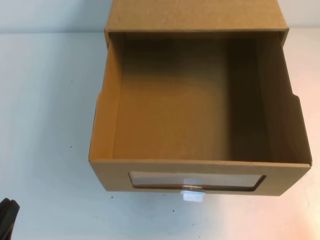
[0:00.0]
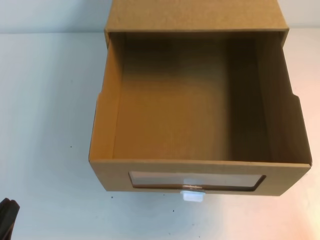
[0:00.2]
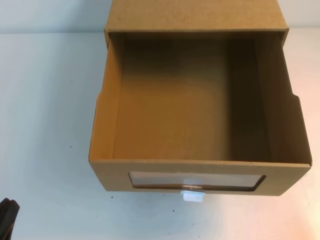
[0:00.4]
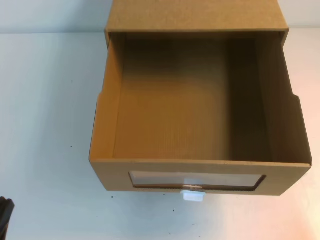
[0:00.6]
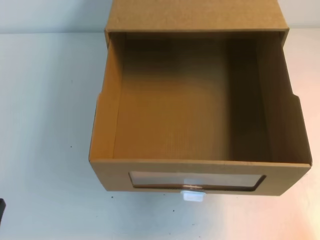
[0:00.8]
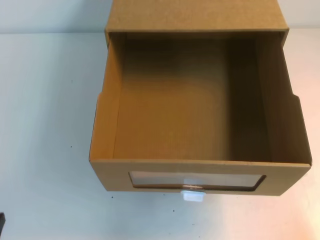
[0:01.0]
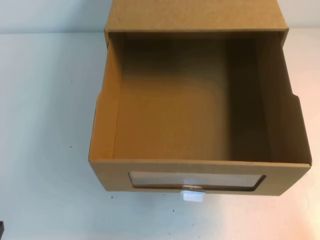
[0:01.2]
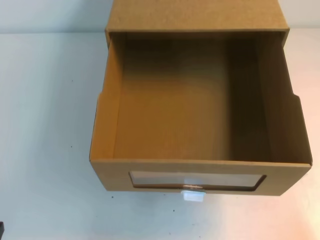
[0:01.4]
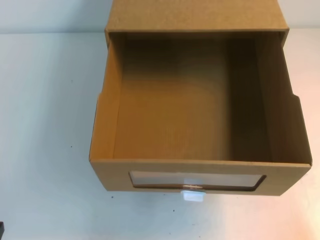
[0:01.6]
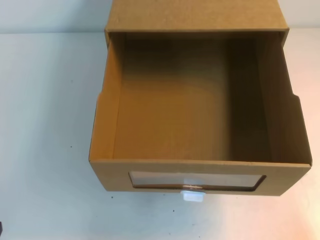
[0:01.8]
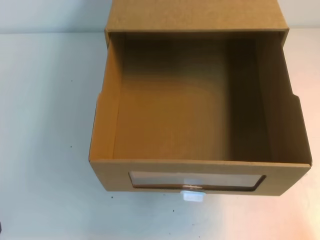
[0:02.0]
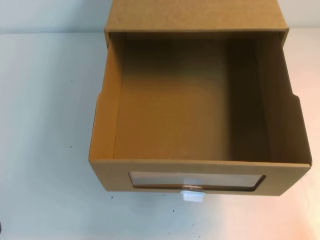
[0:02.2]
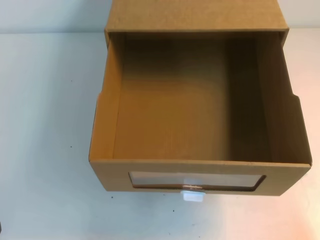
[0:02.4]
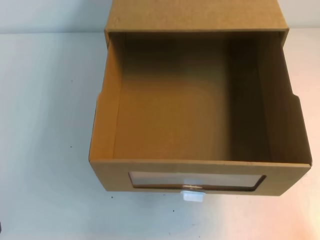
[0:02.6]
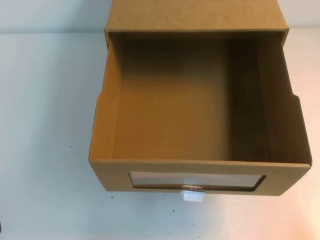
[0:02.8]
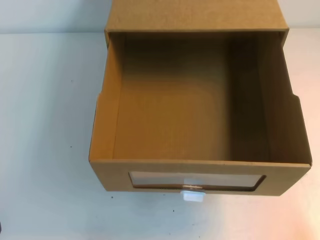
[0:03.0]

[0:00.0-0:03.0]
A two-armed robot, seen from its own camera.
Task of the whole recording: open the shoebox on the table.
0:01.6 to 0:03.0: The two grippers keep their place.

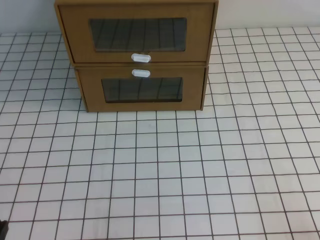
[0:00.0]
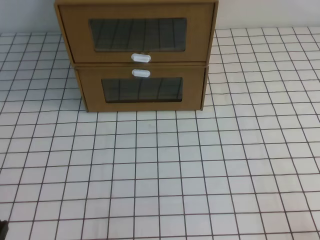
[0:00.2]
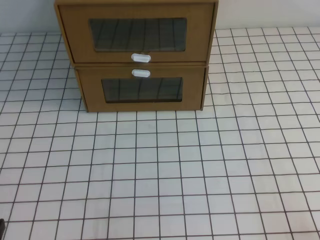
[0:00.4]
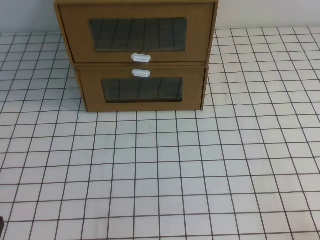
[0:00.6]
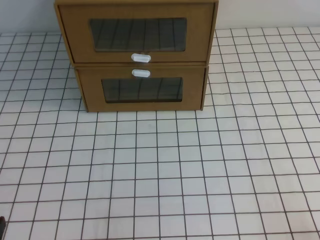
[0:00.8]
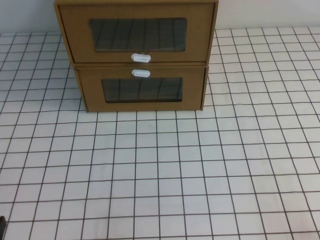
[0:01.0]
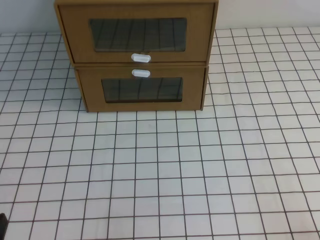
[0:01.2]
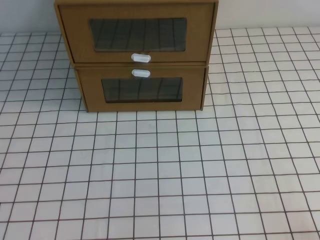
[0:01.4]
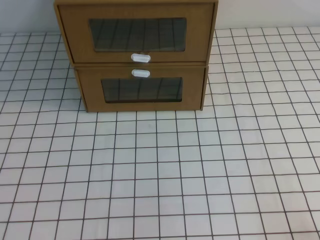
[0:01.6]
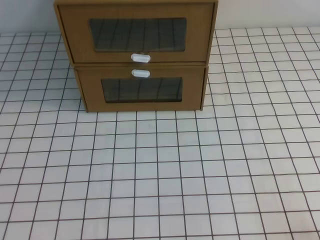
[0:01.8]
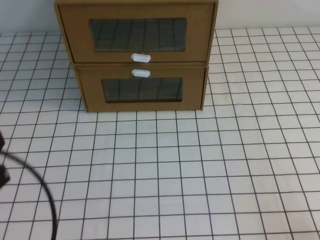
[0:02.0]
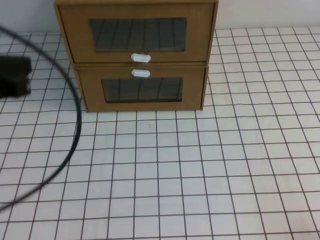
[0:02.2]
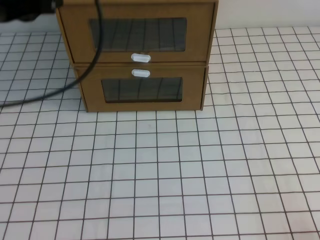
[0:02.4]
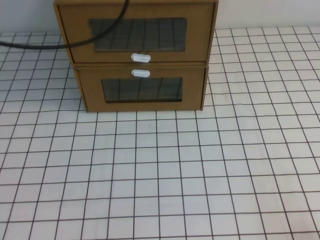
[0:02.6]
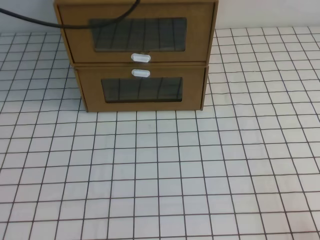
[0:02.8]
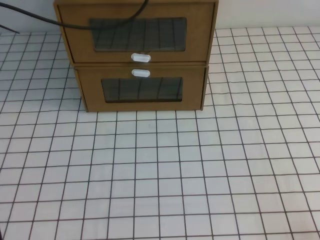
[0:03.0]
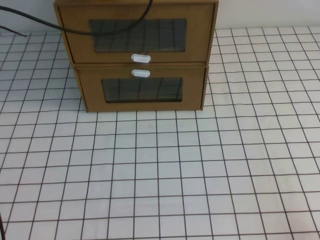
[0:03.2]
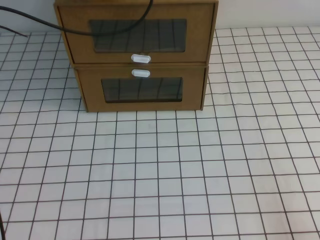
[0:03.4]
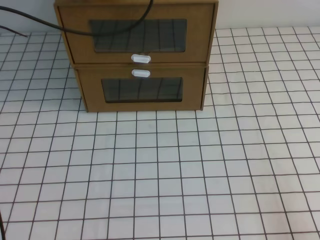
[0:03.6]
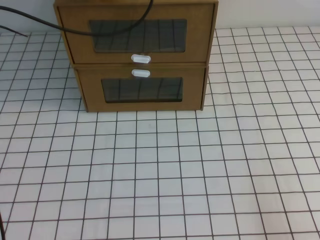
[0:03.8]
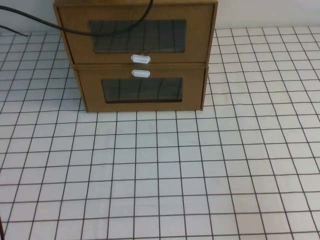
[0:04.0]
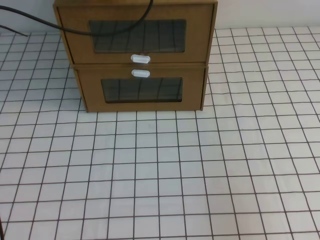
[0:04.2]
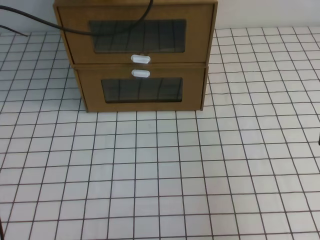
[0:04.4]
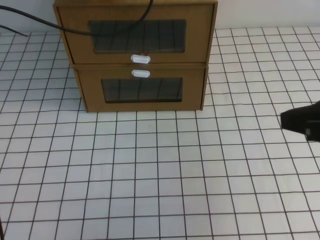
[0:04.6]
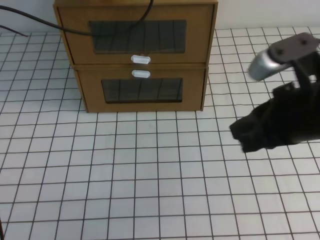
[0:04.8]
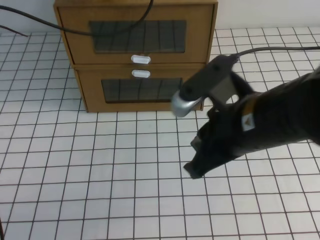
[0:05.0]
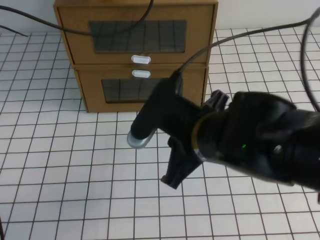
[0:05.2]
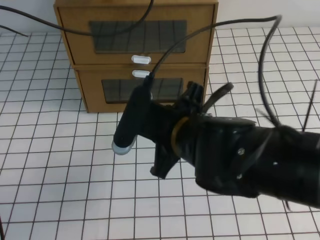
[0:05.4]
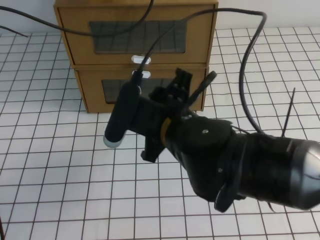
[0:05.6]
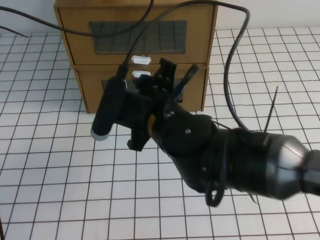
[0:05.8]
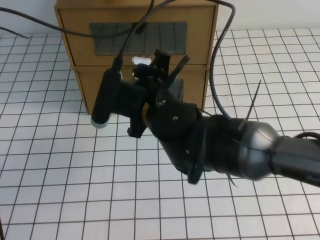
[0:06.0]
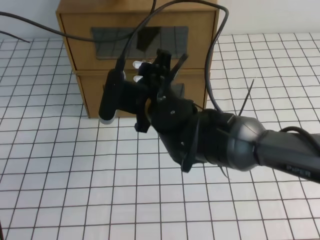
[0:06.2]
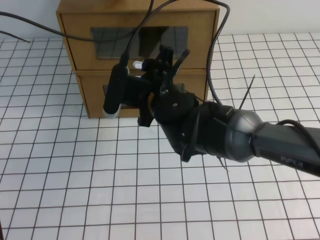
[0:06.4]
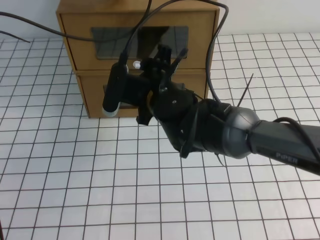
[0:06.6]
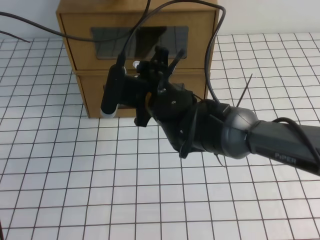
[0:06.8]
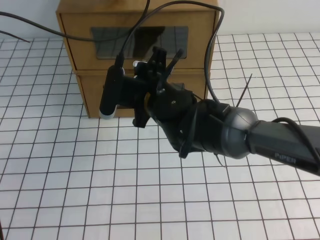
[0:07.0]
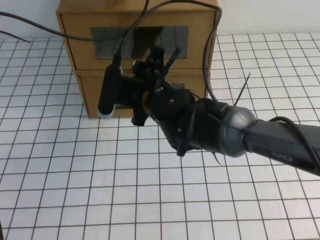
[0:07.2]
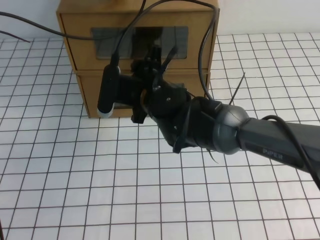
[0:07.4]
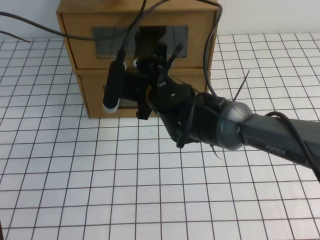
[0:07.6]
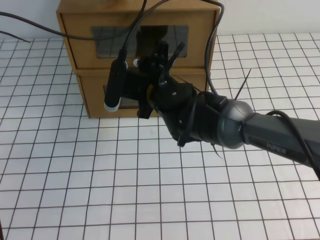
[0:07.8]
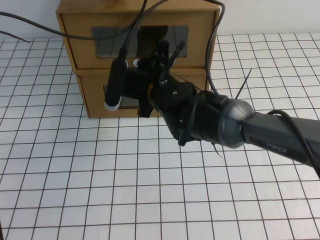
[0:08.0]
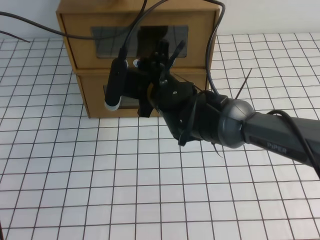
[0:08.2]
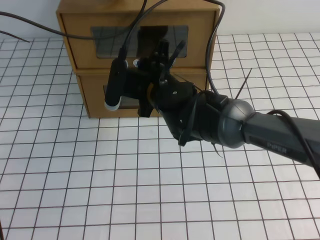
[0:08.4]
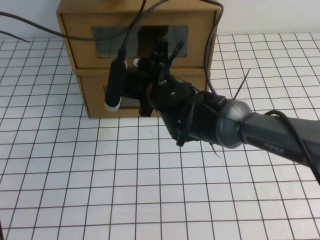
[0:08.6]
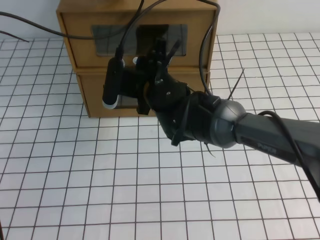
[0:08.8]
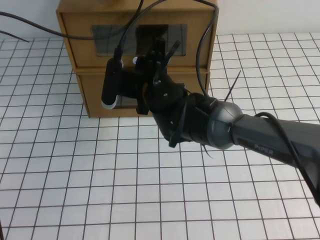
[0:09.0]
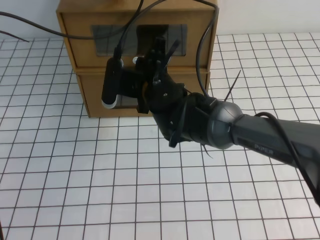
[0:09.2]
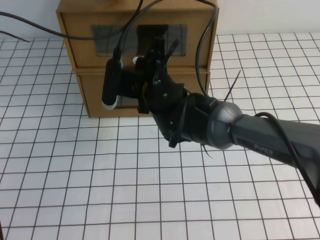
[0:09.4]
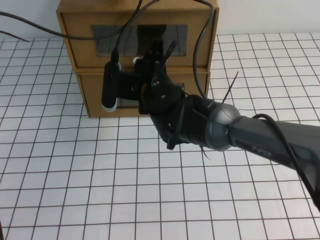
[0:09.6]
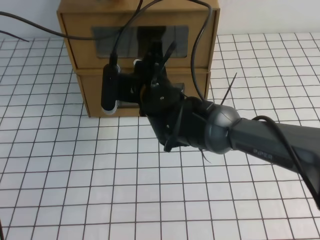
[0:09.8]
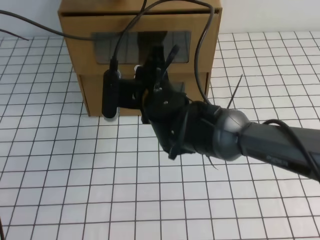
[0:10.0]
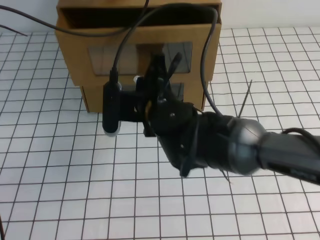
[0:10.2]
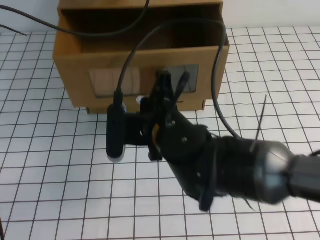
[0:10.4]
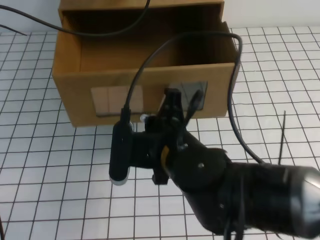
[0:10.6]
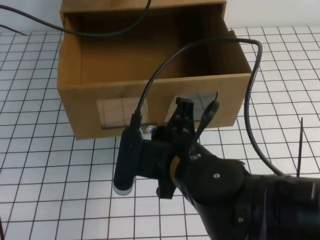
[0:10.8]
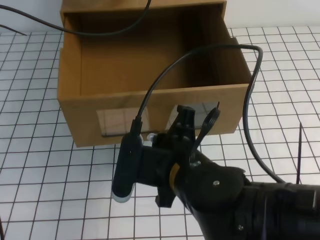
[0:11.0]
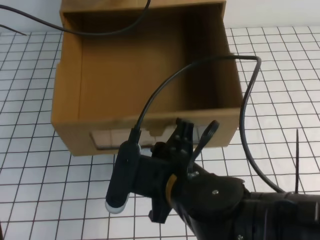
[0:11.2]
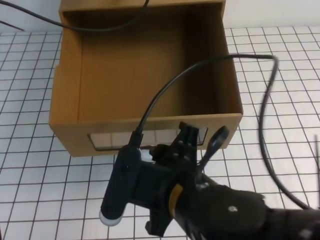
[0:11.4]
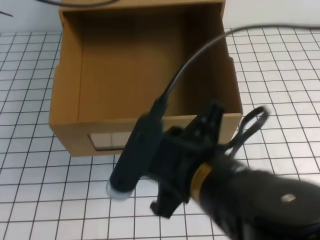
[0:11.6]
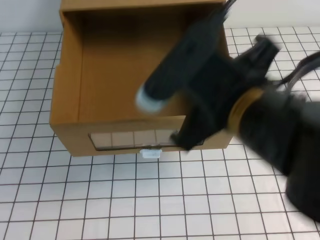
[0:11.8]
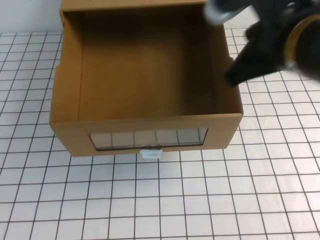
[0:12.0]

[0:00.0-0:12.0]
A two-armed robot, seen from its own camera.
Task of the whole recording: open the shoebox on the white tablecloth.
0:01.6 to 0:03.0: The left gripper is displaced forward and upward by approximately 40 cm.
0:03.0 to 0:04.4: The left gripper shifts by some 5 cm. The right gripper is displaced upward by about 15 cm.
0:04.4 to 0:06.0: The right gripper goes some 35 cm to the left and forward, and opens up.
0:06.0 to 0:07.6: The right gripper heads forward, covering roughly 10 cm.
0:07.6 to 0:09.0: The right gripper closes up.
0:09.0 to 0:10.4: The right gripper shifts roughly 10 cm backward.
0:10.4 to 0:12.0: The right gripper shifts approximately 20 cm upward, to the right and backward, and opens and closes again. The left gripper moves upward and backward, approximately 15 cm.

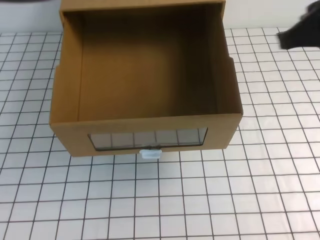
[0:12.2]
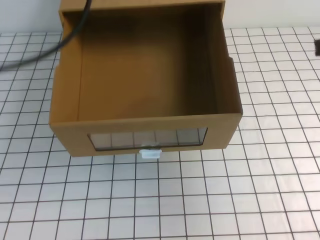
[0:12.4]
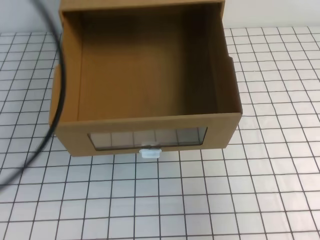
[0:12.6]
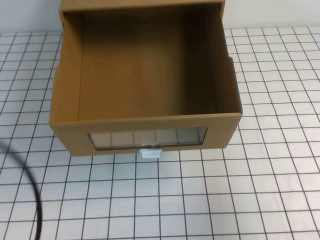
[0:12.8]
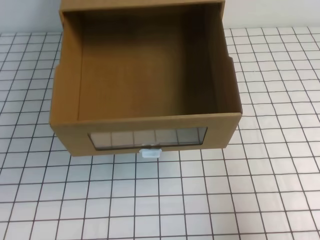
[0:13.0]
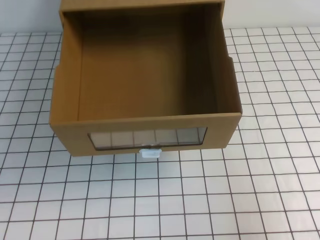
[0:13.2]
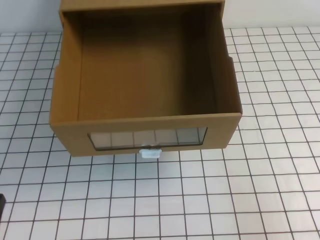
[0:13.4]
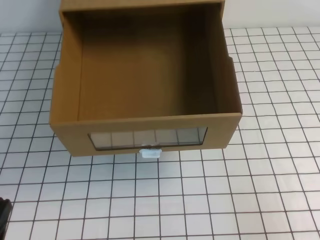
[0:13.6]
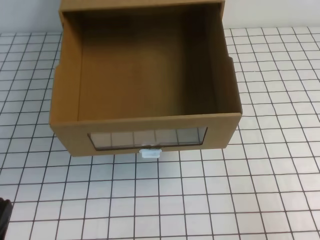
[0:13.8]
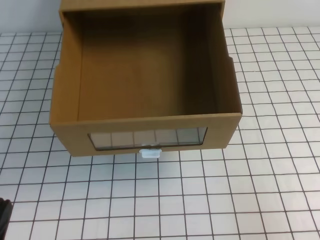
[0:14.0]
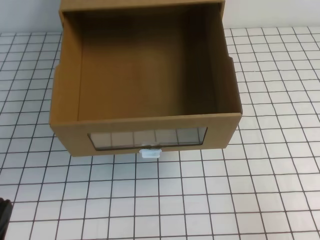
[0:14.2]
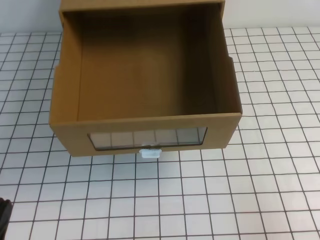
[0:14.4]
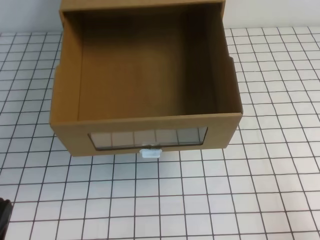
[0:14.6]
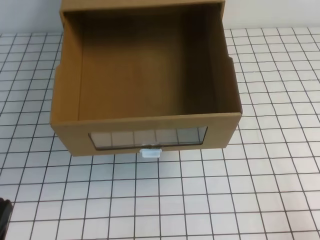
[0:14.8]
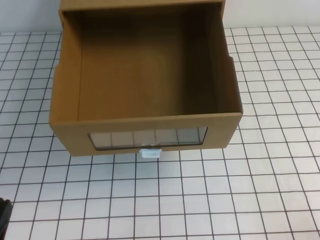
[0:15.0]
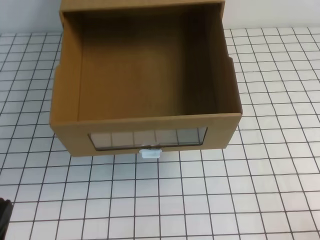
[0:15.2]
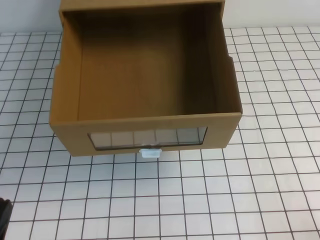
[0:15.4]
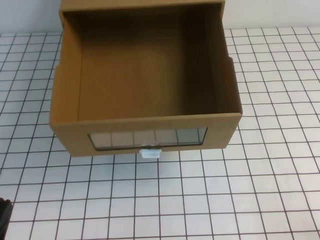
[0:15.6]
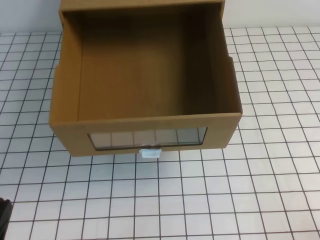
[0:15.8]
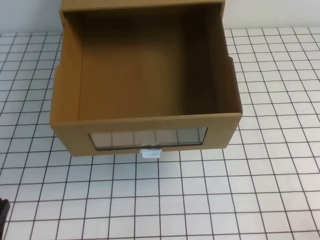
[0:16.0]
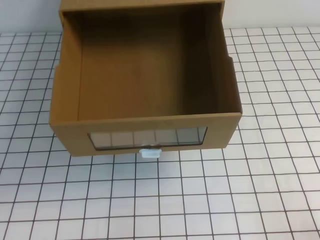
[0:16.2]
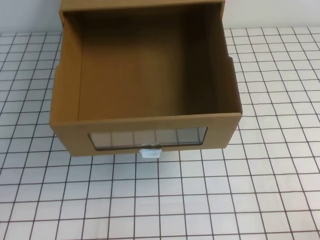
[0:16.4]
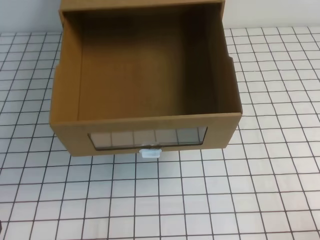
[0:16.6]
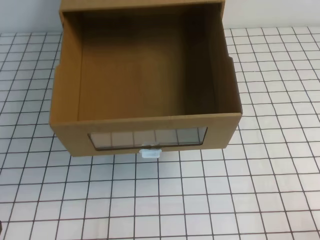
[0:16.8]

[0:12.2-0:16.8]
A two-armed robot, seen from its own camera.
Task of the whole recording: open the shoebox on the white tablecloth.
Step, 0:12.2 to 0:16.8: Open the shoe box.
0:12.2 to 0:13.8: The right gripper moves backward, to the right and downward, about 25 cm. The left gripper travels downward and backward by some 40 cm.

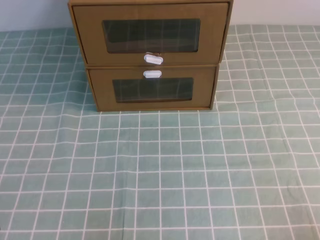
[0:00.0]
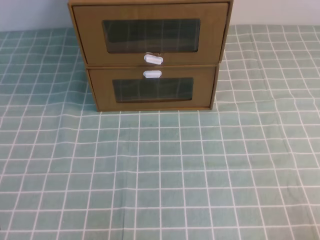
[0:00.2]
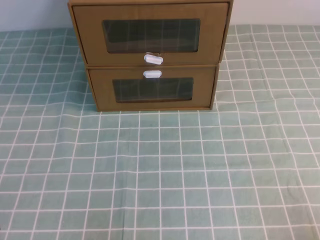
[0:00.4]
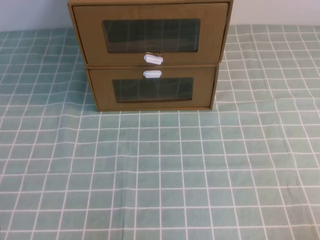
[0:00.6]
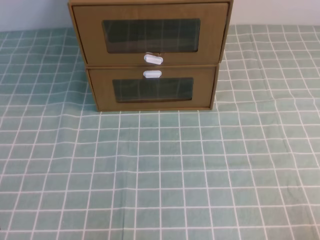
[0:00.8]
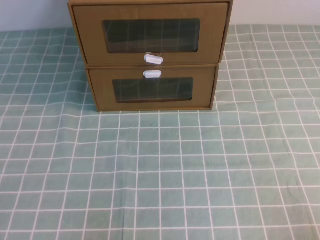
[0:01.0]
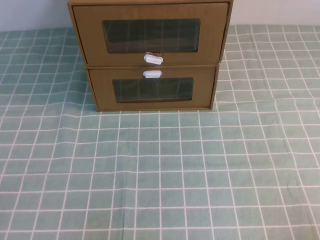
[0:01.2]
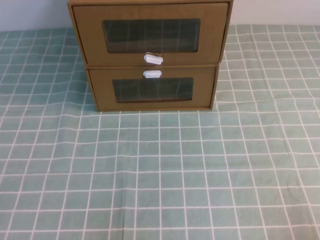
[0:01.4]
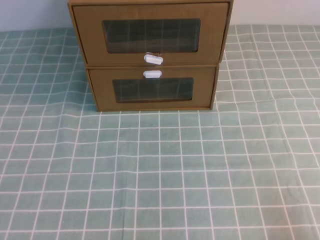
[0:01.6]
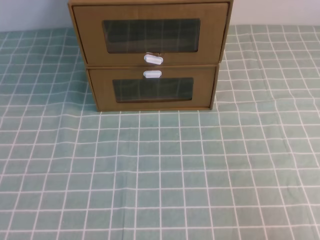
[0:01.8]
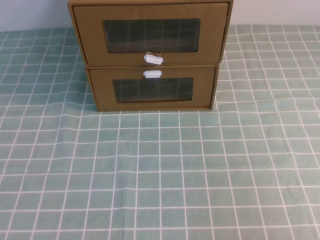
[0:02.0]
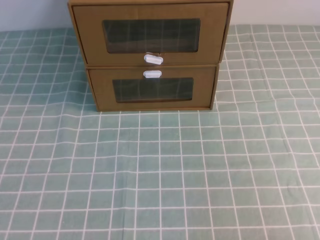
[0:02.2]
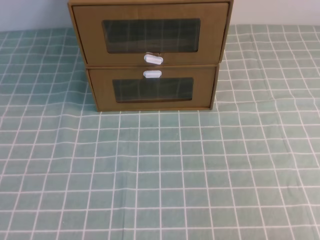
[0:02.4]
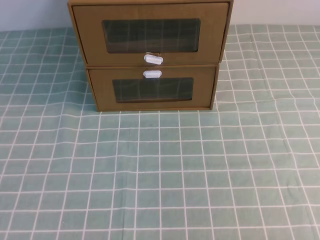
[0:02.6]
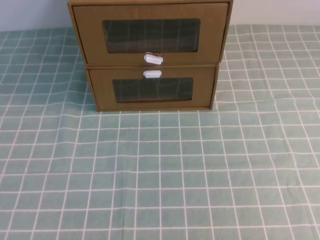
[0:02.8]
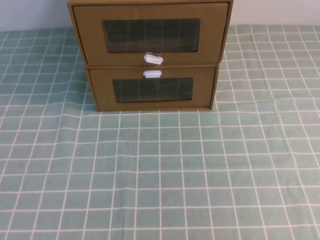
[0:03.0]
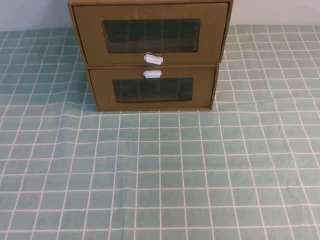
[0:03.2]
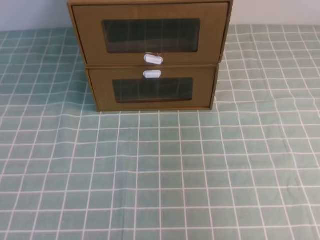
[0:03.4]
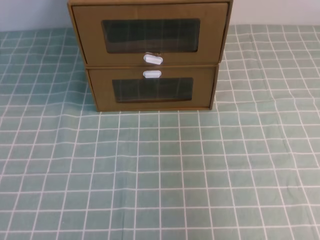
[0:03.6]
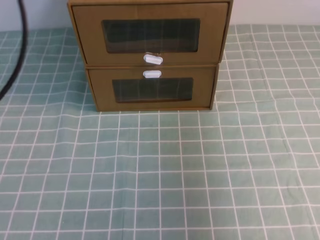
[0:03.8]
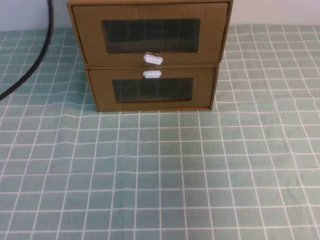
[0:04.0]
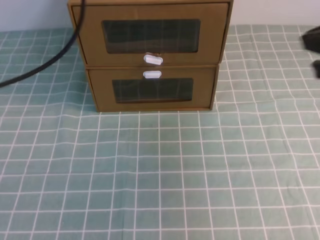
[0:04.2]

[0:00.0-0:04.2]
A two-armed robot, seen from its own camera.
Task of the whole recording: open the shoebox on the cyan tablecloth.
0:02.8 to 0:04.2: The grippers both shift forward by roughly 30 cm.
